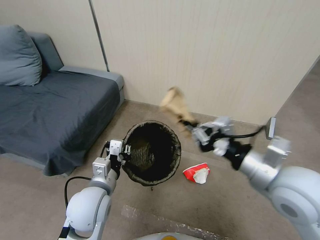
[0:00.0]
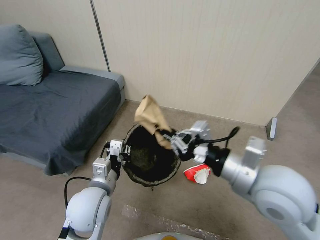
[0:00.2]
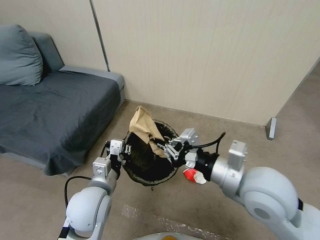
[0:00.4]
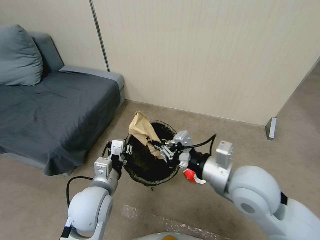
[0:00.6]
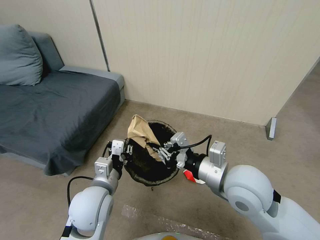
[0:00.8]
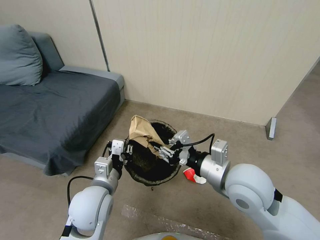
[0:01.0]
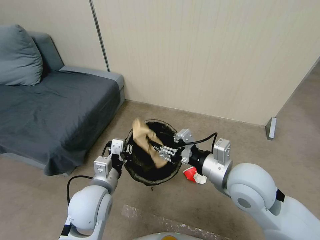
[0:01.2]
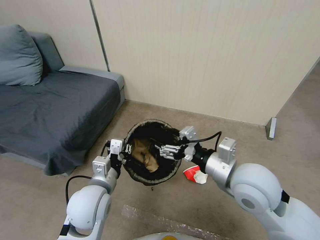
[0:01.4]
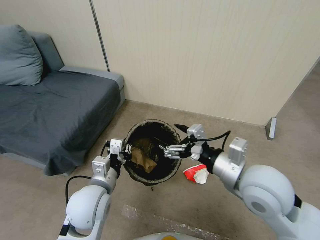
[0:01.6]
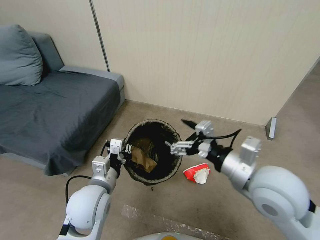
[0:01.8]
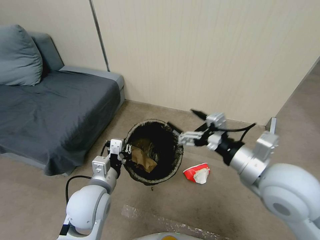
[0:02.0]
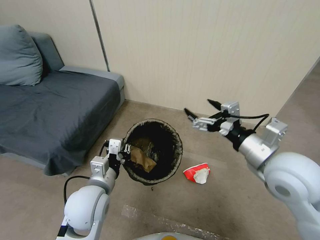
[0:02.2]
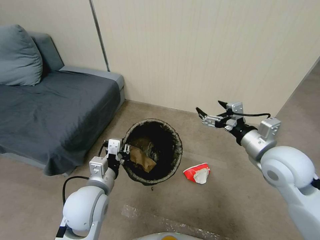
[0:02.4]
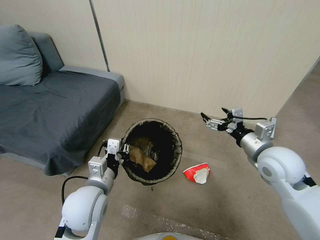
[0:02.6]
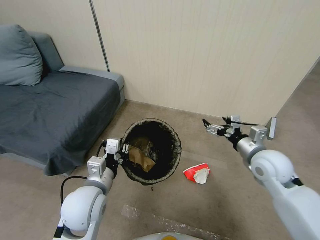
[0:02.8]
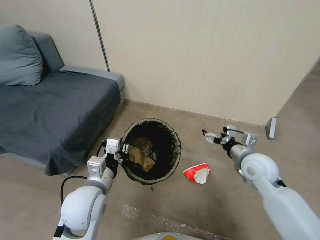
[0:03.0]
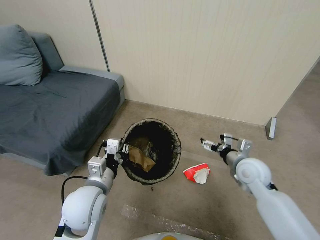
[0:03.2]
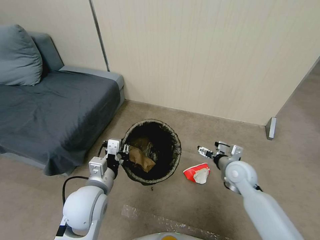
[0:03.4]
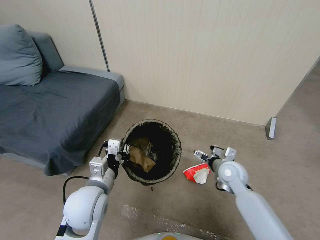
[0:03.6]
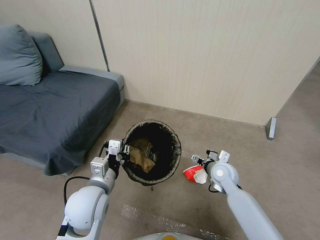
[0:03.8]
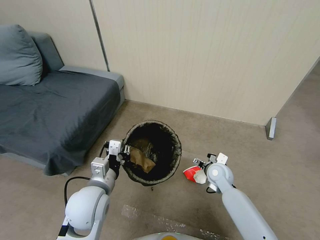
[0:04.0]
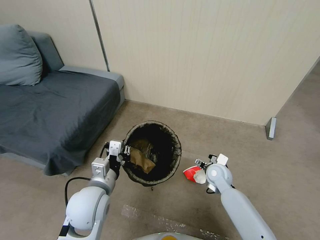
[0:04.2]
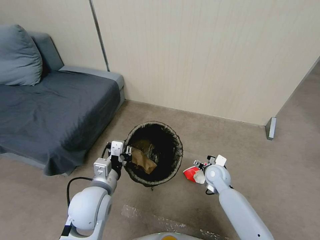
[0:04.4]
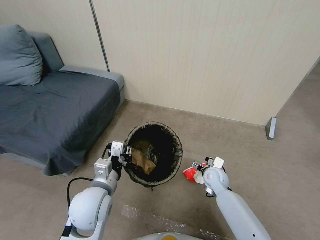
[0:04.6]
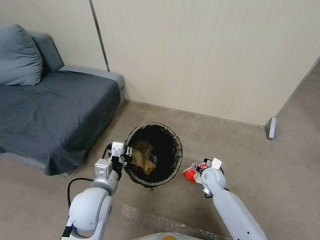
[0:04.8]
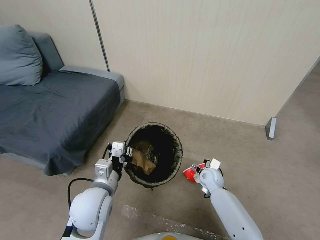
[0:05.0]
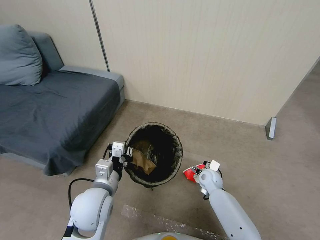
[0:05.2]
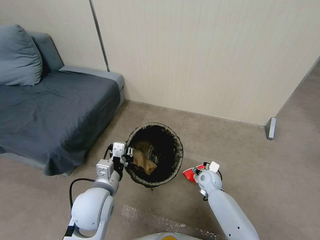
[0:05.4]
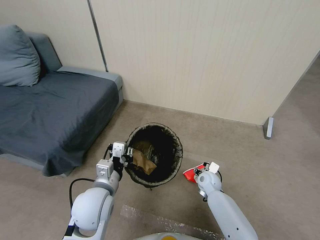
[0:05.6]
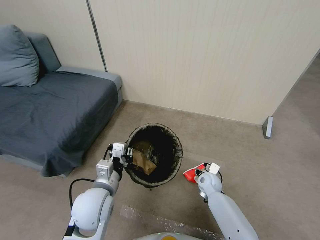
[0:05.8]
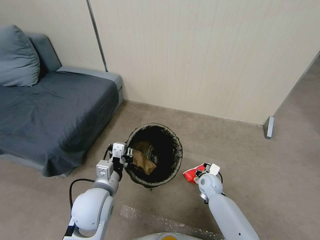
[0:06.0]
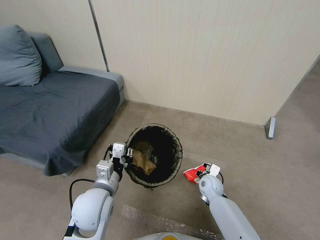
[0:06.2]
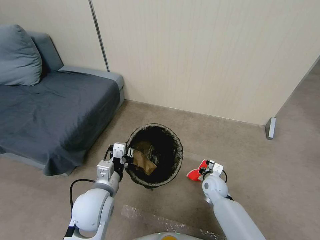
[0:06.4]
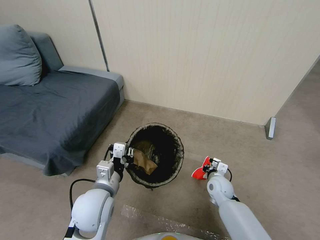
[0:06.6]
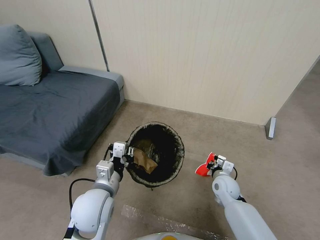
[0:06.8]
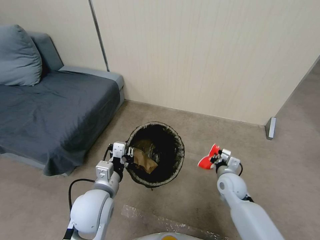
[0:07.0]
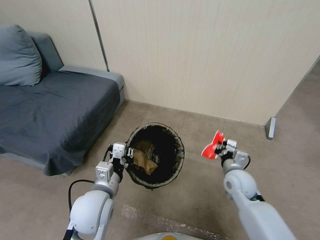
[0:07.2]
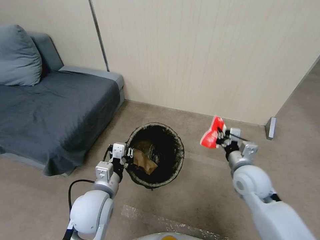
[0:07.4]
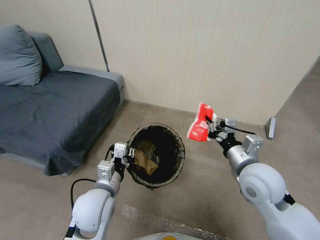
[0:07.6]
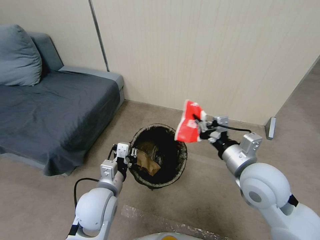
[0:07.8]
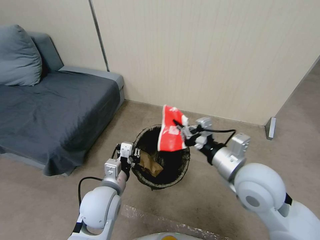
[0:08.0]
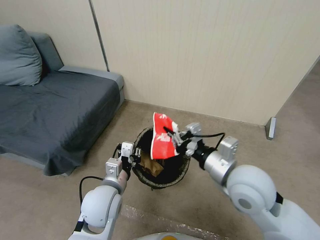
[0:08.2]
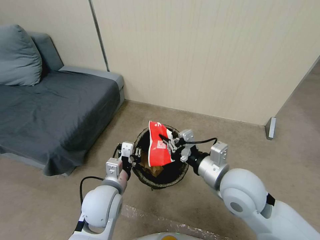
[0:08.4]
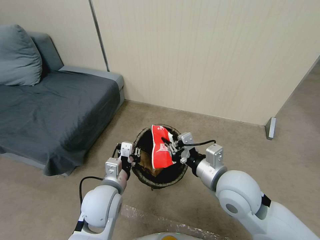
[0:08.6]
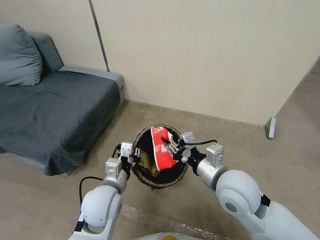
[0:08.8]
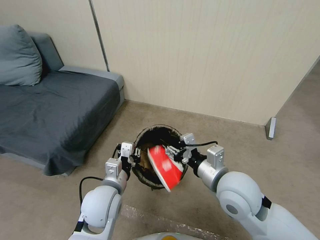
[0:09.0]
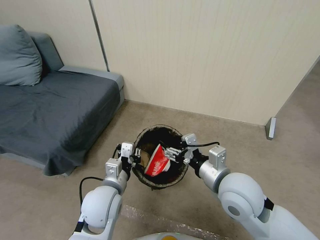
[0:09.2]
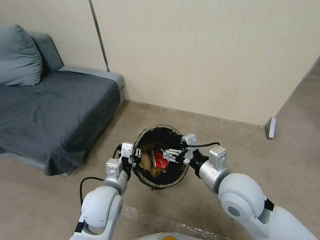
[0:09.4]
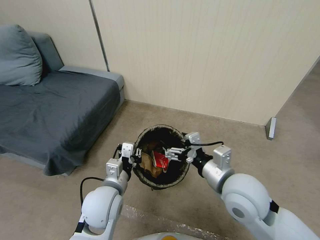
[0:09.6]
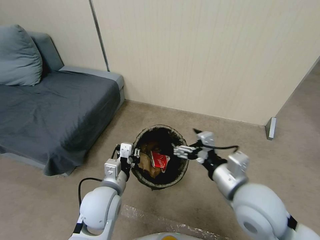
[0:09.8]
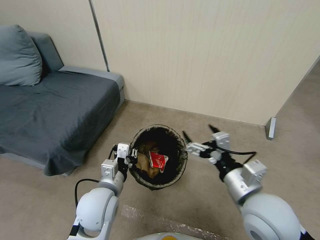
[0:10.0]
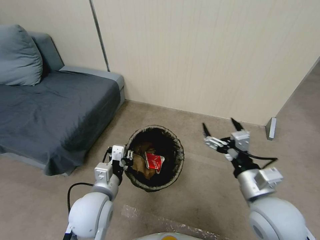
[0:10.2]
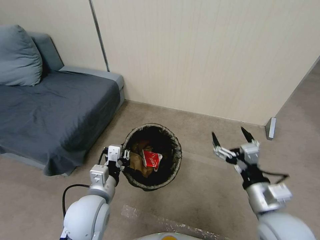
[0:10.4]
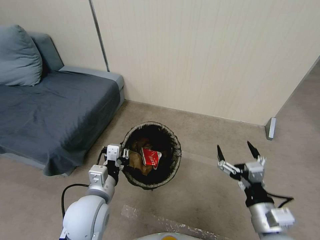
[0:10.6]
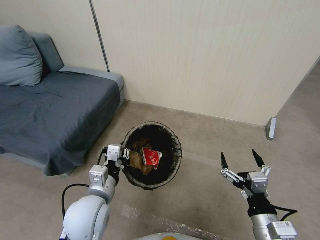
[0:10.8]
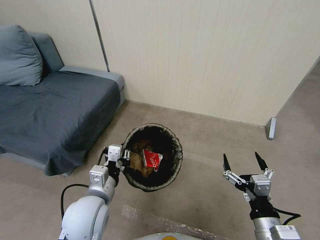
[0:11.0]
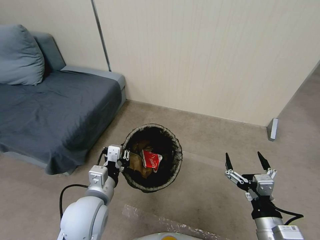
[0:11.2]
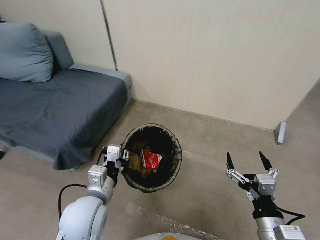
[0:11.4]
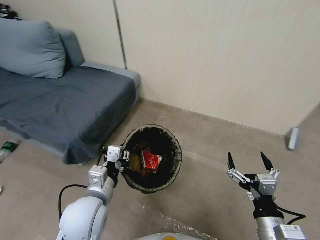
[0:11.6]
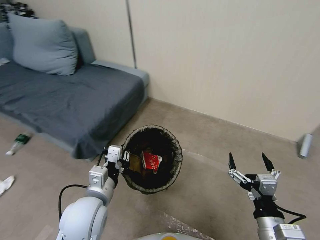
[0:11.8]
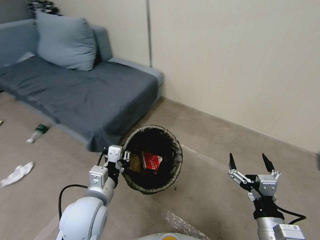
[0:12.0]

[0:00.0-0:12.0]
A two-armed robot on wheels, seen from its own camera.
Task of the whole recording: Pick up the trash bin, then pick up the garbage from the floor and place it into the trash bin.
0:00.0 to 0:01.6: The right gripper ends up some 5 cm from where it was, and opens.
0:01.6 to 0:03.0: The right gripper moves downward, forward and to the right, about 15 cm.
0:03.0 to 0:04.4: The right gripper travels downward and to the left by roughly 20 cm.
0:04.4 to 0:06.0: The right gripper moves downward, roughly 5 cm, and closes up.
0:06.0 to 0:07.6: The right gripper shifts some 30 cm upward, and closes.
0:07.6 to 0:09.0: The right gripper moves to the left, approximately 5 cm, and opens its fingers.
0:09.0 to 0:10.4: The right gripper travels to the right and backward by approximately 10 cm, and opens.
0:10.4 to 0:12.0: The right gripper goes some 10 cm backward and downward.

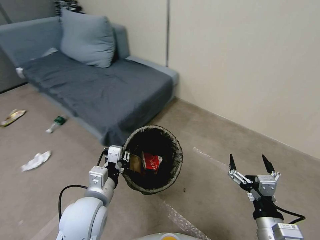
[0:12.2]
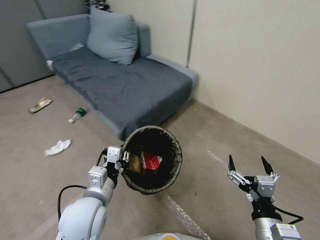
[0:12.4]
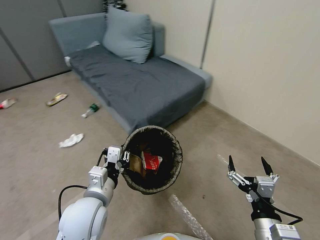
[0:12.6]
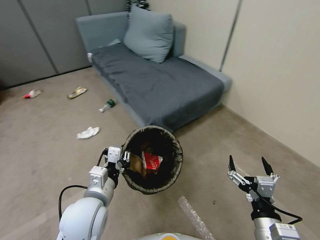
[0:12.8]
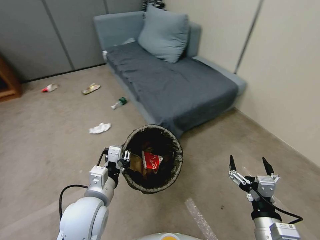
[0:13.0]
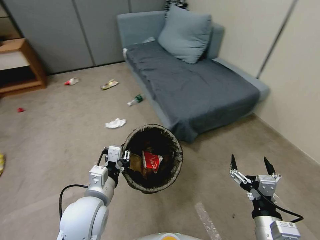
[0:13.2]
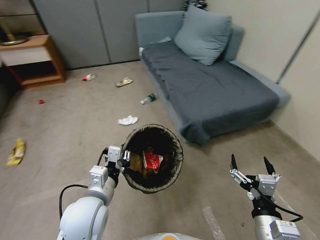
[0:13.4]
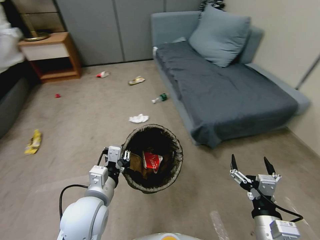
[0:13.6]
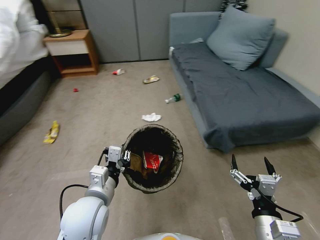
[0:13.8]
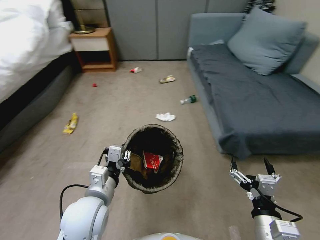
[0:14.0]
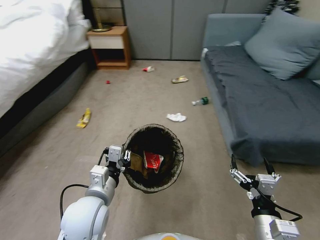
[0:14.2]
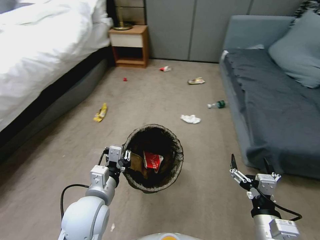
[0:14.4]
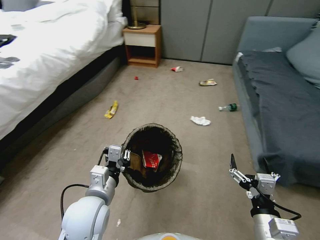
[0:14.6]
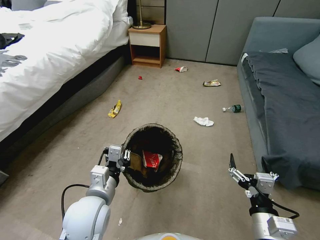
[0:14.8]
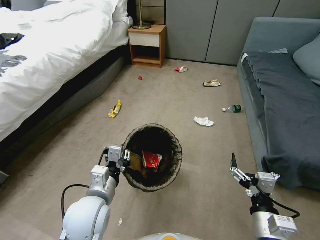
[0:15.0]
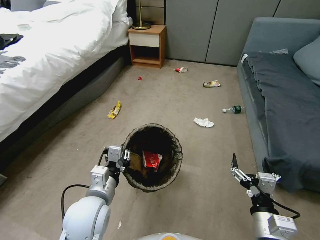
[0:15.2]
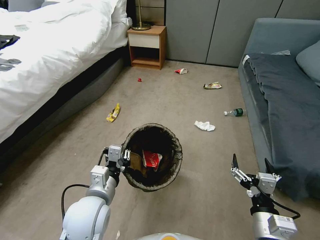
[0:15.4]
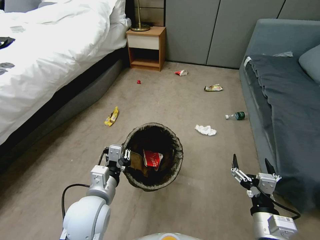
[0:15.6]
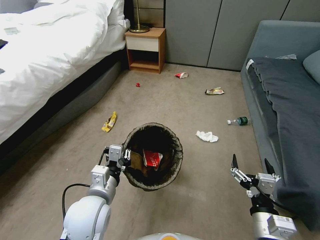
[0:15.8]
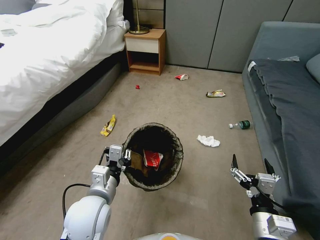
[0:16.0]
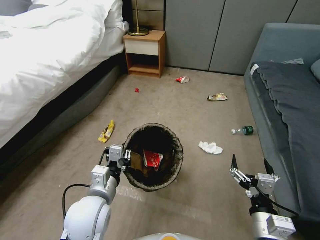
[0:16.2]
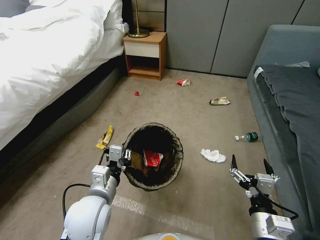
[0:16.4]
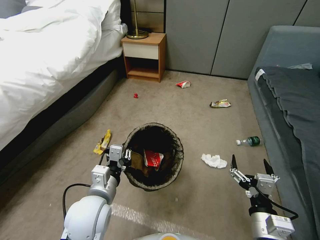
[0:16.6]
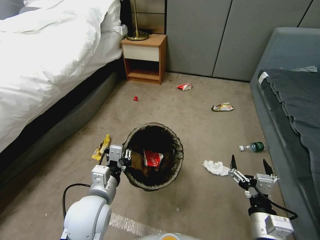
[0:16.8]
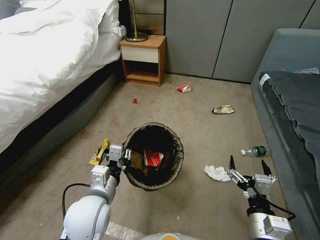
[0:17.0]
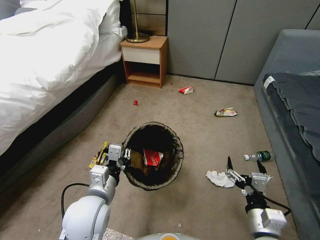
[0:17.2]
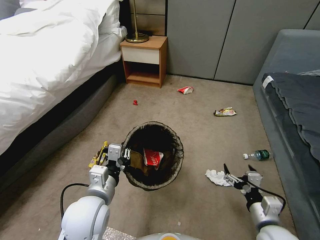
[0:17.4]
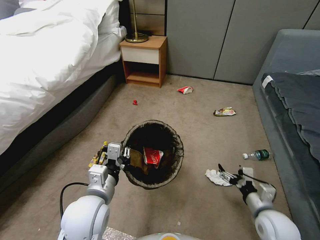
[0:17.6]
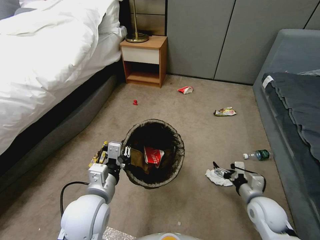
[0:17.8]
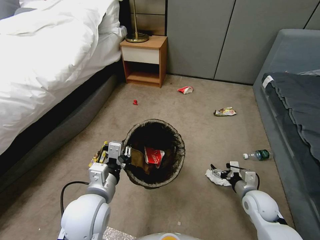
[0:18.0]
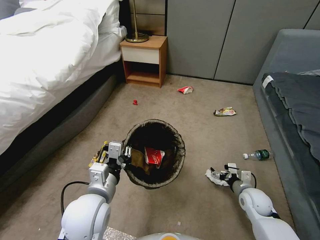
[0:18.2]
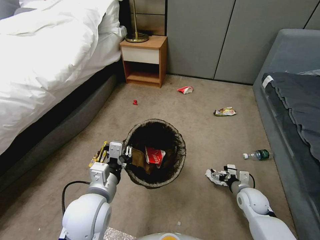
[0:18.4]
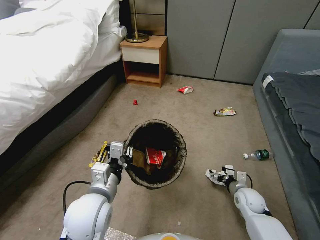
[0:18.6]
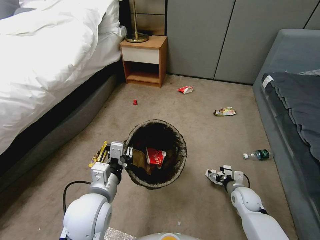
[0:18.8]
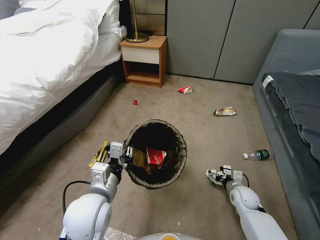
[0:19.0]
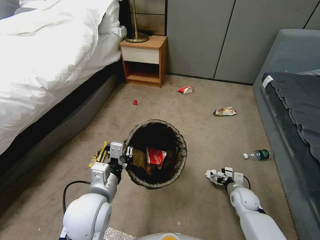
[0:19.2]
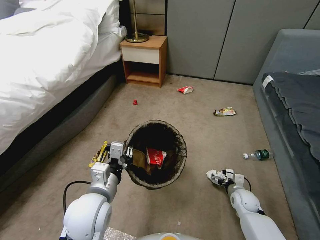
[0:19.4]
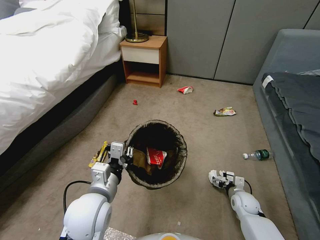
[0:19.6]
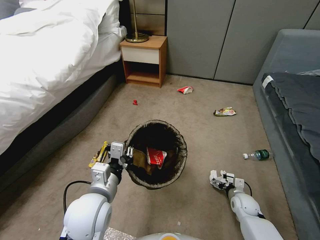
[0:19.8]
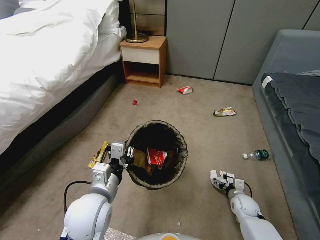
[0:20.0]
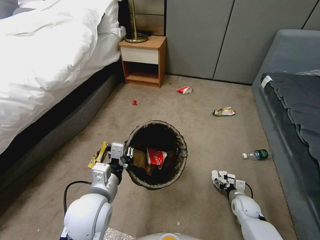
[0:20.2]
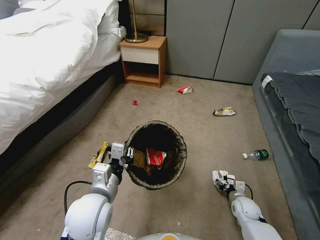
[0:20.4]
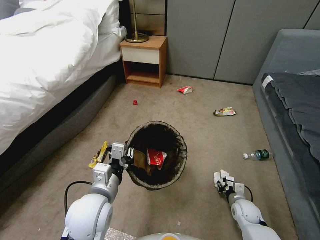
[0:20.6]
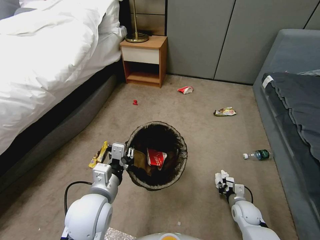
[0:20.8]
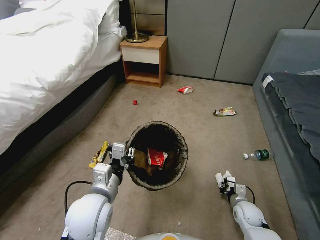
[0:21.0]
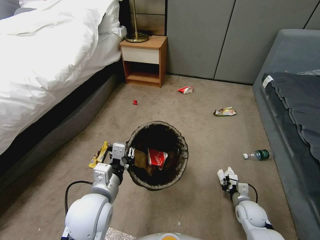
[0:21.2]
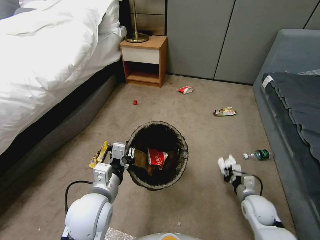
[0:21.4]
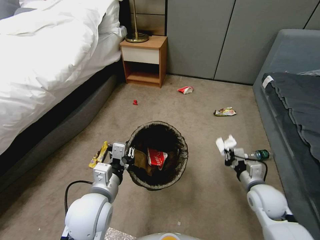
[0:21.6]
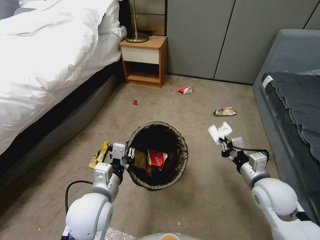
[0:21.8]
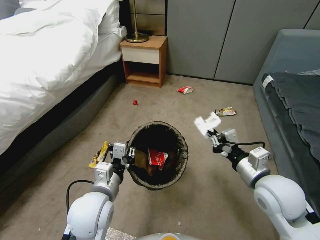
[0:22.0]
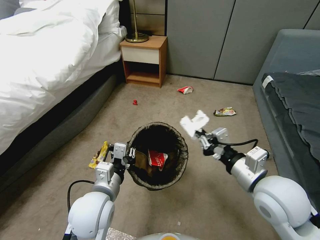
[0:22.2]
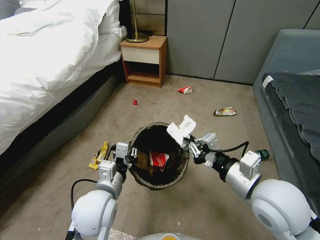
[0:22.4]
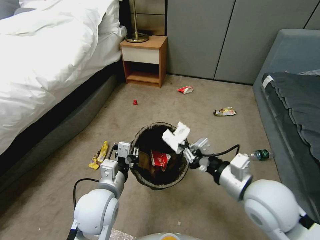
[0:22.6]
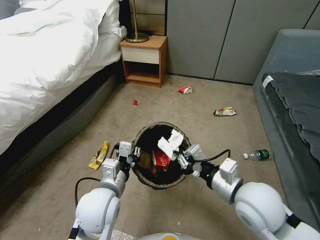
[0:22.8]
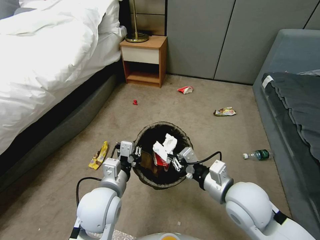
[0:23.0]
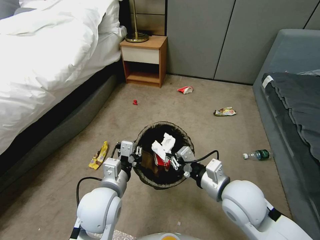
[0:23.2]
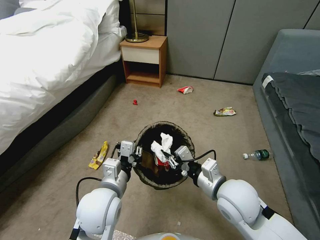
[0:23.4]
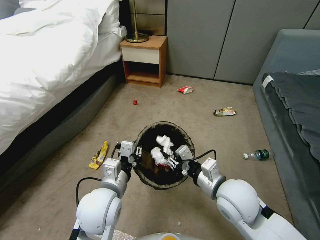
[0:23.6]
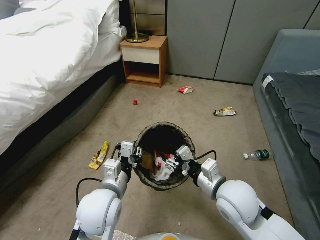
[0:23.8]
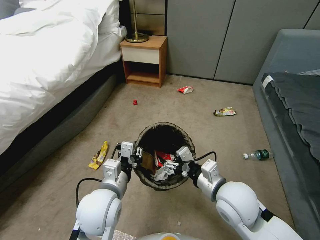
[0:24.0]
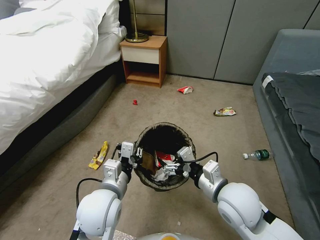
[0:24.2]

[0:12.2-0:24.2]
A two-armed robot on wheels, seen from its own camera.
Task of the whole recording: Pick up the trash bin, then pick up the garbage from the floor and place it into the trash bin.
0:16.6 to 0:18.2: The right gripper goes about 25 cm forward, downward and to the right.
0:18.2 to 0:19.8: The right gripper shifts roughly 10 cm downward.
0:19.8 to 0:21.2: The right gripper closes.
0:21.2 to 0:22.6: The right gripper moves upward, about 30 cm.
0:22.6 to 0:24.2: The right gripper is displaced downward by some 5 cm, and opens its fingers.
